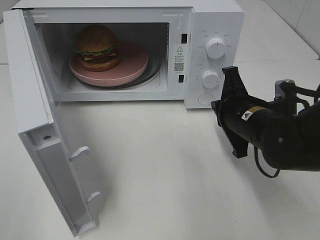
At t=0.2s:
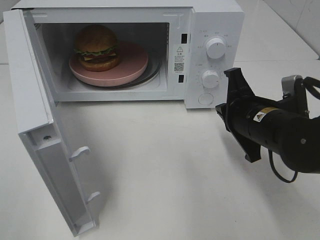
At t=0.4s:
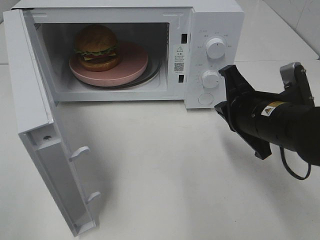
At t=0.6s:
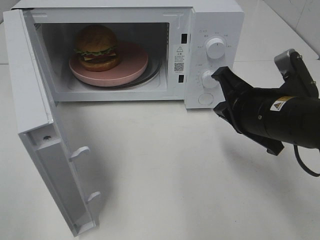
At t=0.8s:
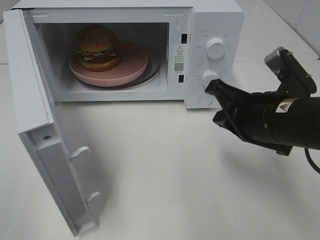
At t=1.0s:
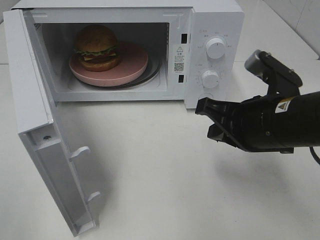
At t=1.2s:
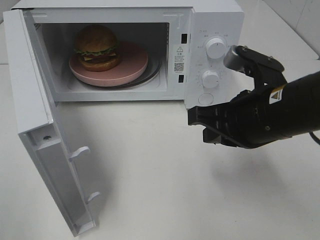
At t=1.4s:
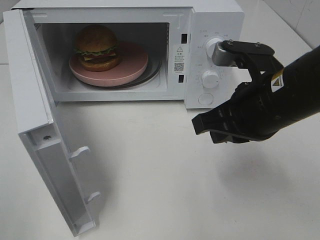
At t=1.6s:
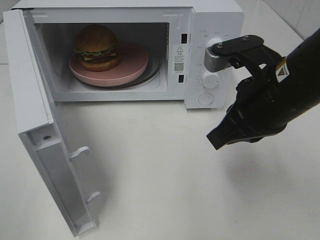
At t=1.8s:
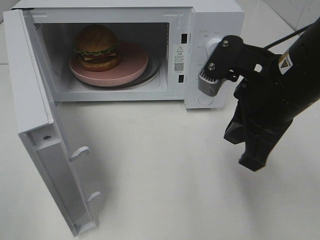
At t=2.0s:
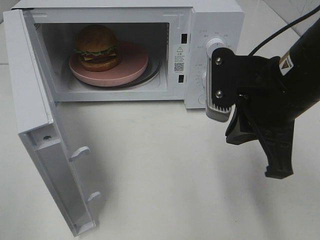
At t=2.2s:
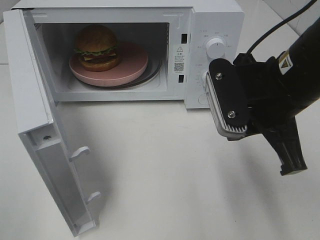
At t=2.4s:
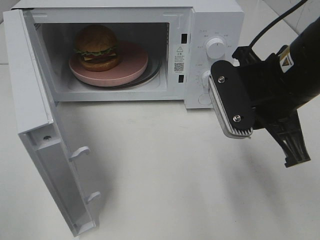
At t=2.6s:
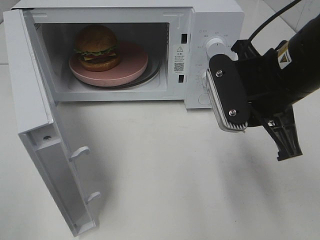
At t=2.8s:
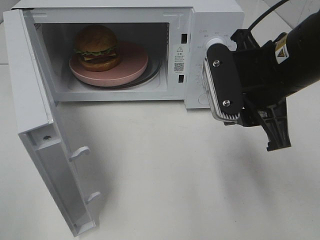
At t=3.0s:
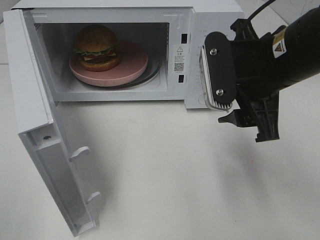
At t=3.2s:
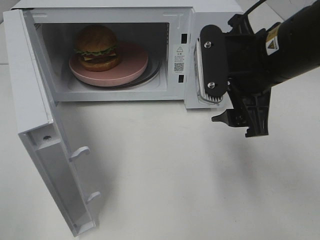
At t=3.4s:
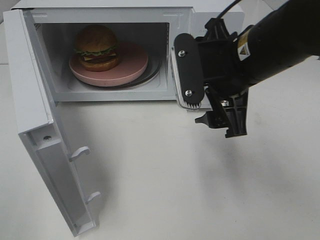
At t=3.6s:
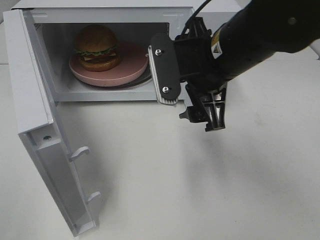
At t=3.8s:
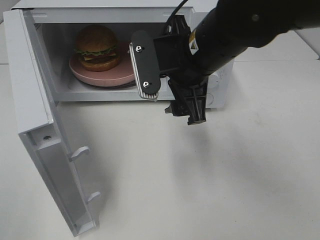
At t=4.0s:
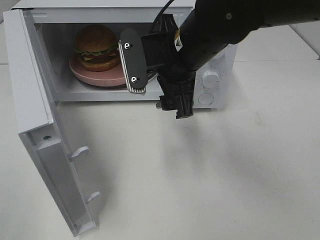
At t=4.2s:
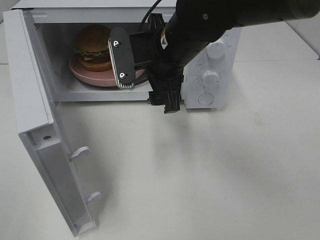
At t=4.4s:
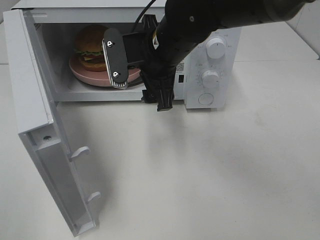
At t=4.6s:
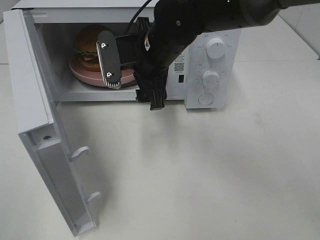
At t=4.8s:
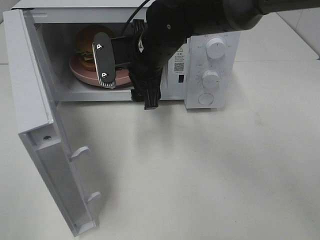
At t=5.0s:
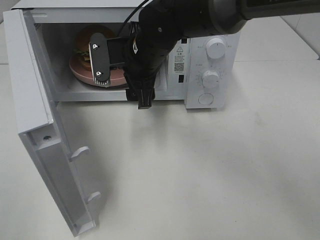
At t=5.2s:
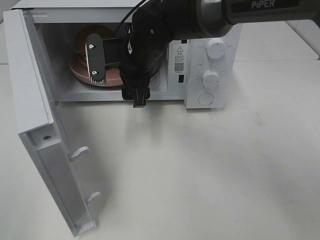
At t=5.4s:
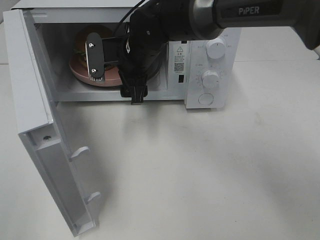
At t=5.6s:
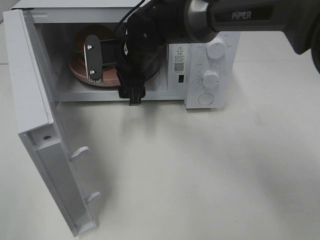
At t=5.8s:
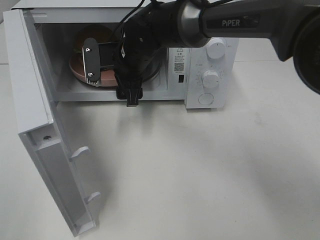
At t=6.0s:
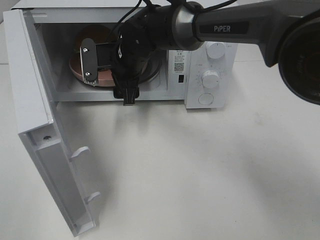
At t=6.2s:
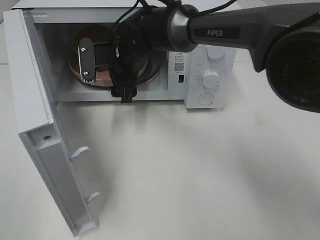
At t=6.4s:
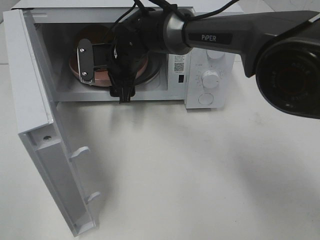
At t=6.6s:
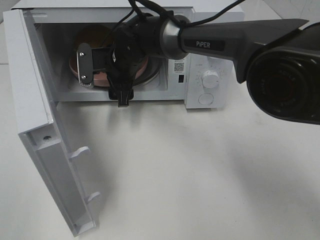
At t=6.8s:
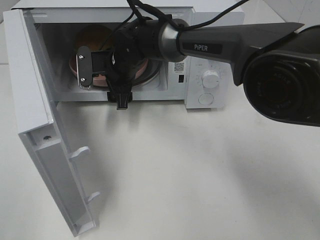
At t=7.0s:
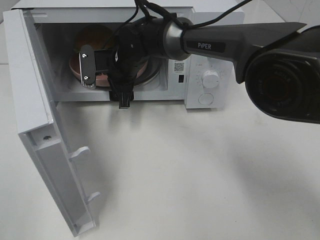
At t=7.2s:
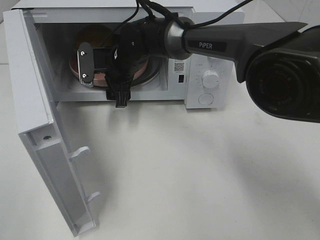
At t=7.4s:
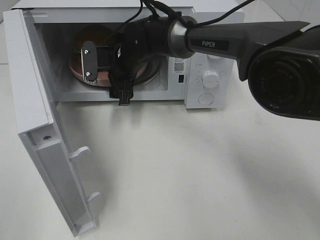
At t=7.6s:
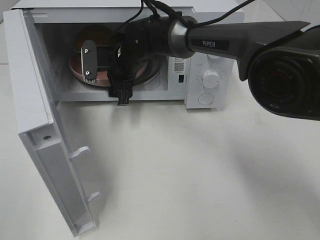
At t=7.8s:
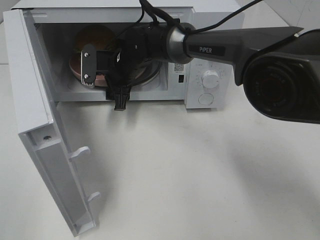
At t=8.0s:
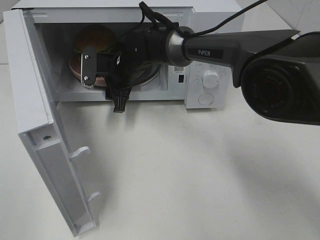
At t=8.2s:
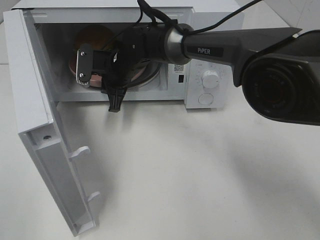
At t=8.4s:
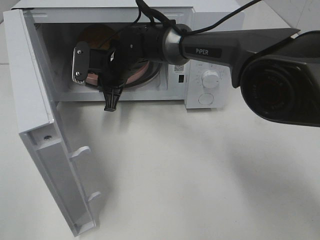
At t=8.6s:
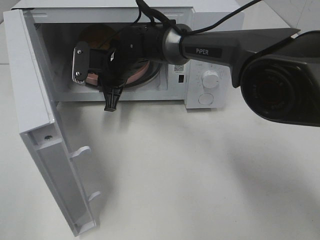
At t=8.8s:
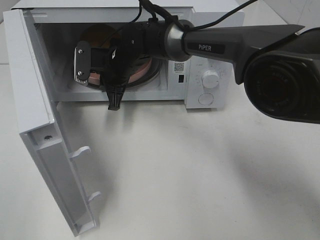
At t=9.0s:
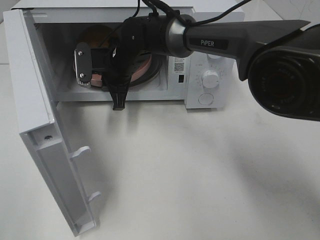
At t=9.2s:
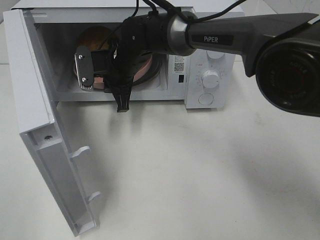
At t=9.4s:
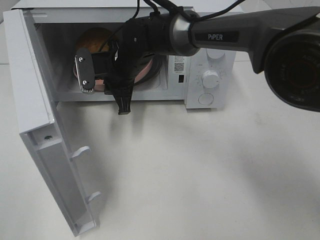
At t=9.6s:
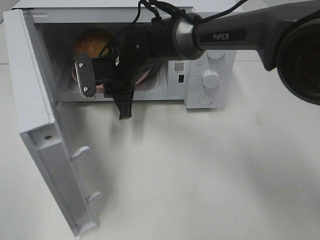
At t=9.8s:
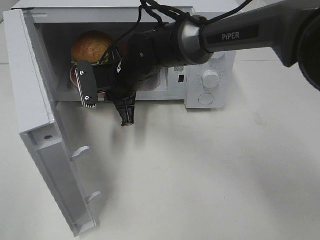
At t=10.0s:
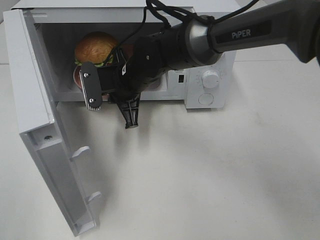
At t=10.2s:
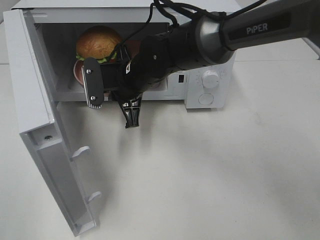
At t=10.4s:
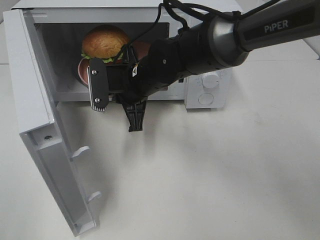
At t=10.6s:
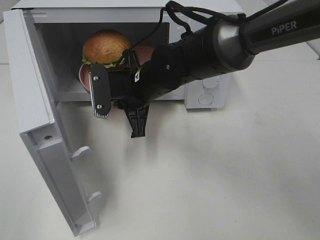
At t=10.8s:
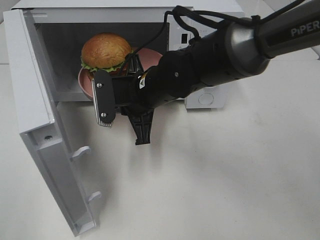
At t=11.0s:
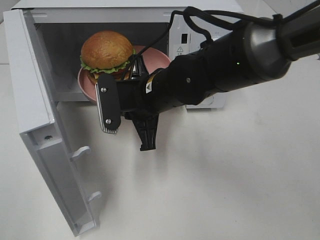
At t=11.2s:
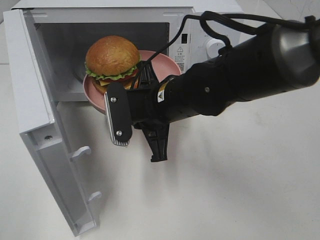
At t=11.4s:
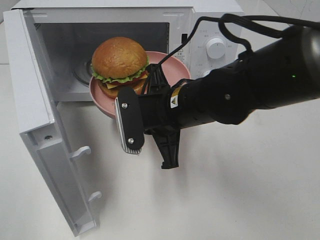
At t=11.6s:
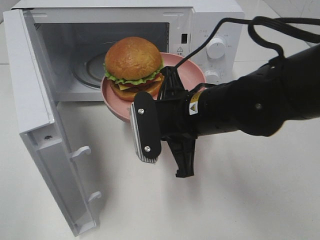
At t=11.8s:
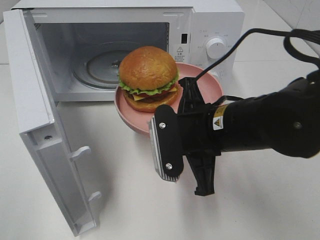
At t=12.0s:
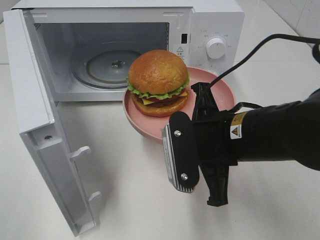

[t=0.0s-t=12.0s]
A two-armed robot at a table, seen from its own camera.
Task of the whole recording: Heat the burger.
Step, t=0.0s to t=8.4s: Right hand: grab the plate with the hamburger.
t=0.0s to t=1.6s: The right gripper is displaced upward and backward by some 10 cm.
t=1.6s to t=3.0s: The right gripper opens.
t=3.0s to t=4.4s: The right gripper moves to the left and forward, roughly 15 cm.
t=4.4s to t=6.0s: The right gripper shifts approximately 10 cm forward, to the left and downward.
t=6.0s to t=7.6s: The grippers move only a little.
t=7.6s to t=9.0s: The right gripper closes.
t=9.0s to t=10.4s: The right gripper is displaced backward by about 10 cm.
t=10.4s to t=12.0s: The right gripper heads backward and to the right, covering about 20 cm.

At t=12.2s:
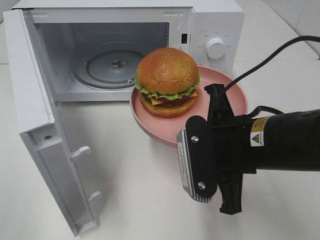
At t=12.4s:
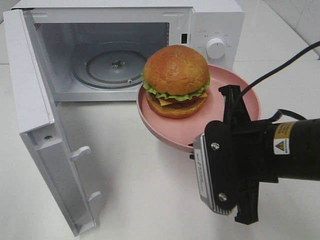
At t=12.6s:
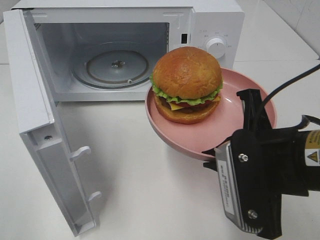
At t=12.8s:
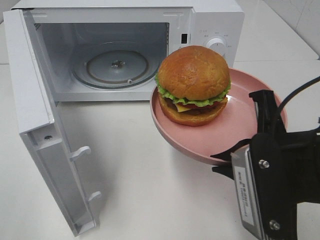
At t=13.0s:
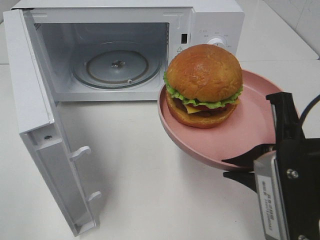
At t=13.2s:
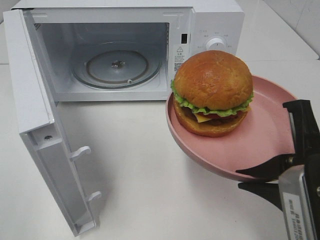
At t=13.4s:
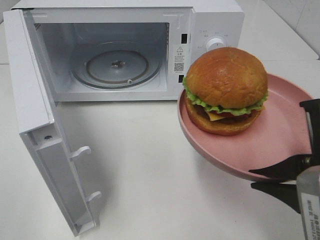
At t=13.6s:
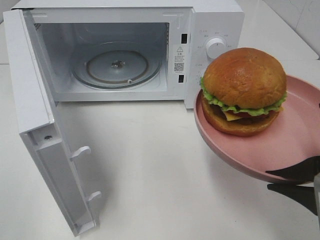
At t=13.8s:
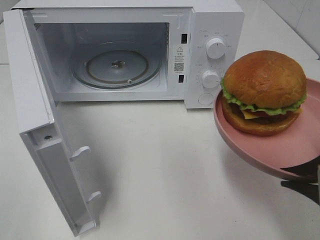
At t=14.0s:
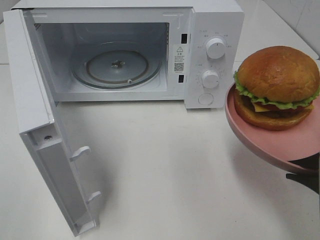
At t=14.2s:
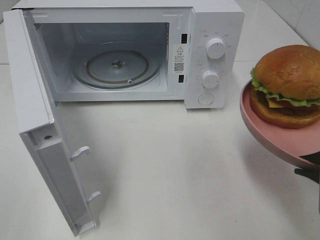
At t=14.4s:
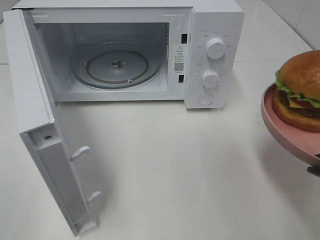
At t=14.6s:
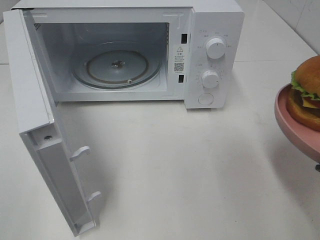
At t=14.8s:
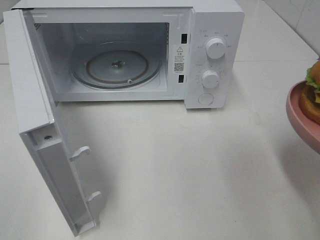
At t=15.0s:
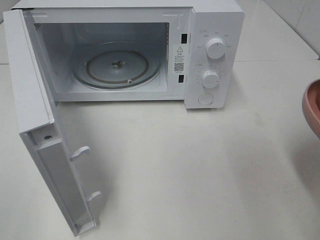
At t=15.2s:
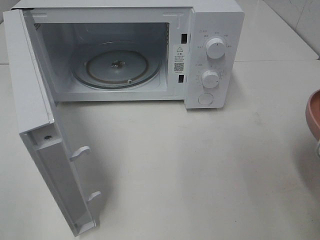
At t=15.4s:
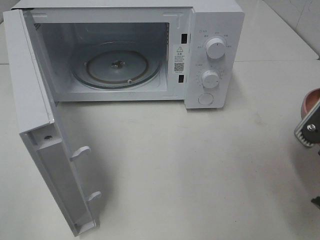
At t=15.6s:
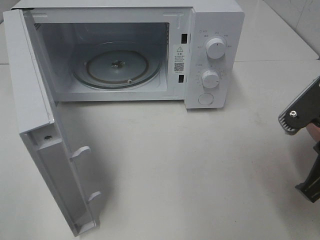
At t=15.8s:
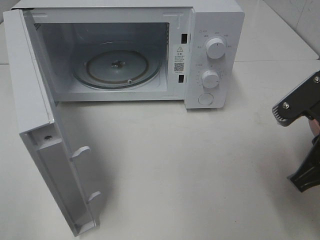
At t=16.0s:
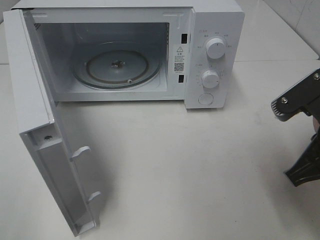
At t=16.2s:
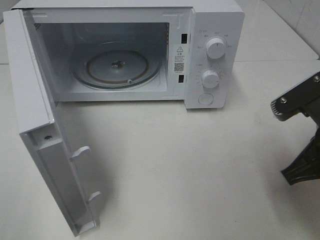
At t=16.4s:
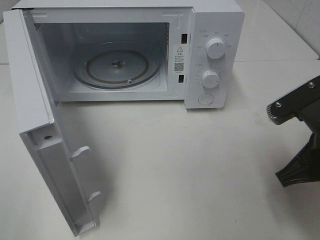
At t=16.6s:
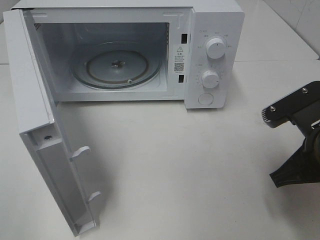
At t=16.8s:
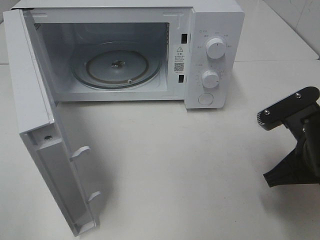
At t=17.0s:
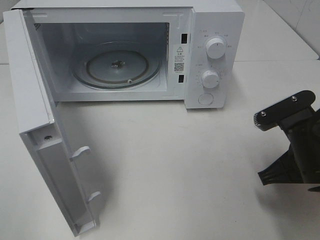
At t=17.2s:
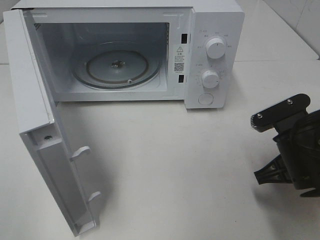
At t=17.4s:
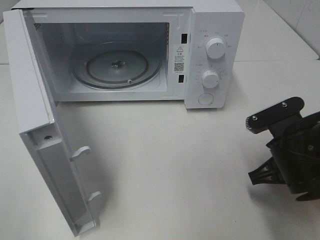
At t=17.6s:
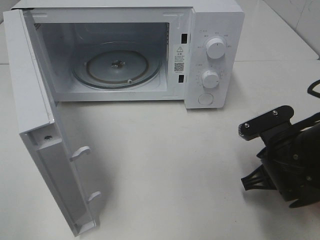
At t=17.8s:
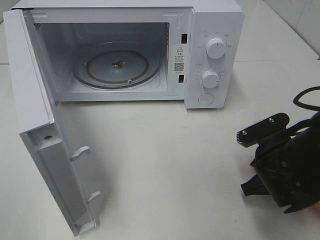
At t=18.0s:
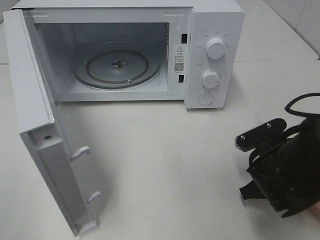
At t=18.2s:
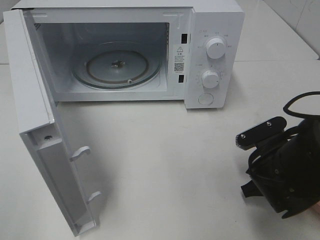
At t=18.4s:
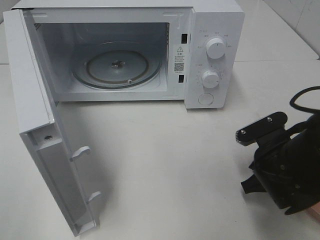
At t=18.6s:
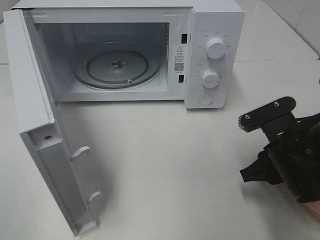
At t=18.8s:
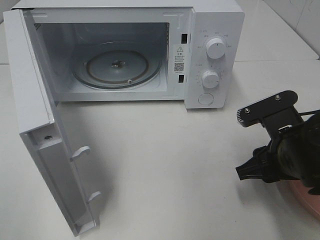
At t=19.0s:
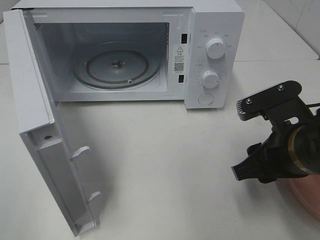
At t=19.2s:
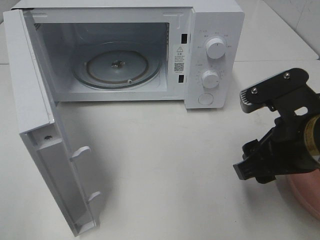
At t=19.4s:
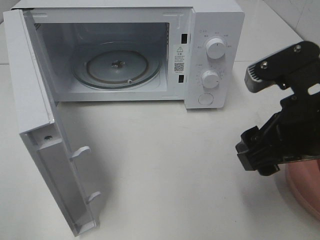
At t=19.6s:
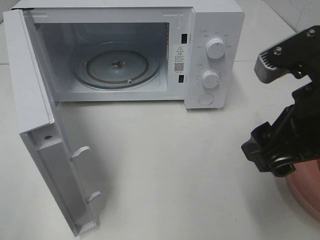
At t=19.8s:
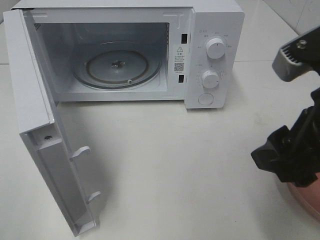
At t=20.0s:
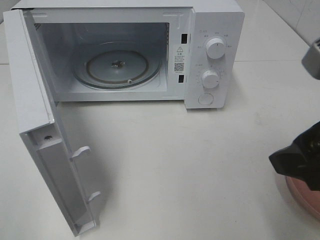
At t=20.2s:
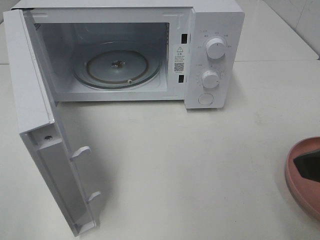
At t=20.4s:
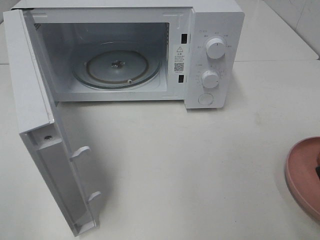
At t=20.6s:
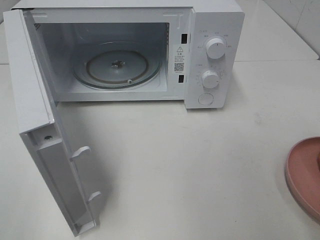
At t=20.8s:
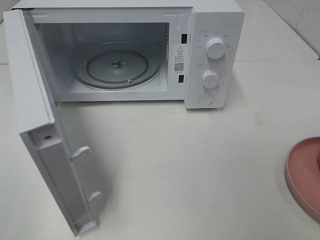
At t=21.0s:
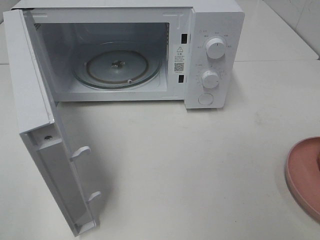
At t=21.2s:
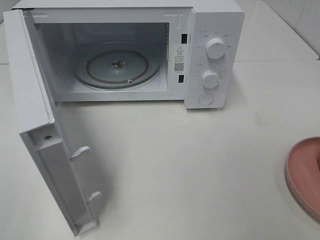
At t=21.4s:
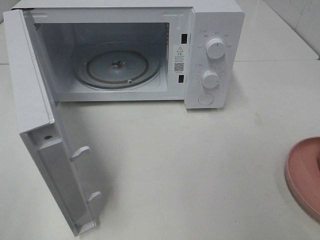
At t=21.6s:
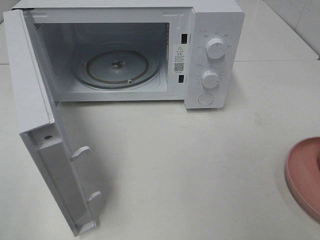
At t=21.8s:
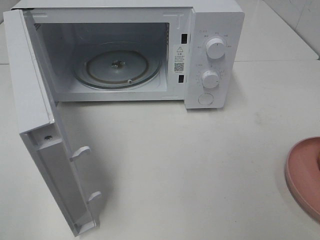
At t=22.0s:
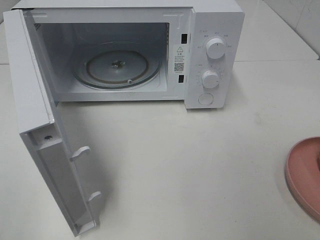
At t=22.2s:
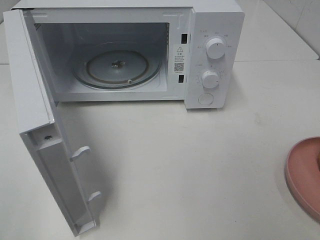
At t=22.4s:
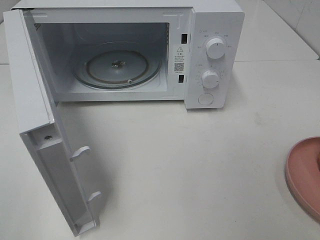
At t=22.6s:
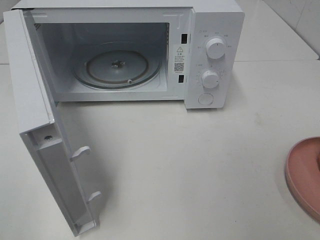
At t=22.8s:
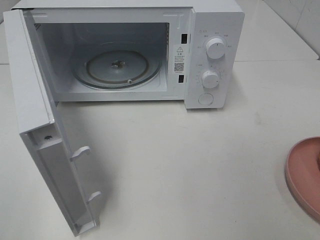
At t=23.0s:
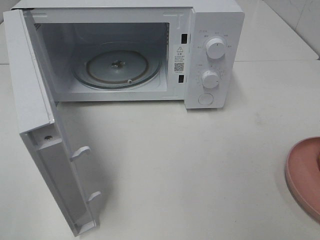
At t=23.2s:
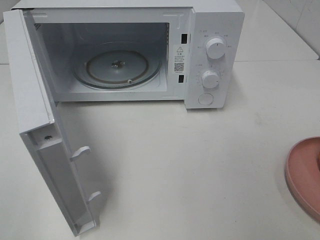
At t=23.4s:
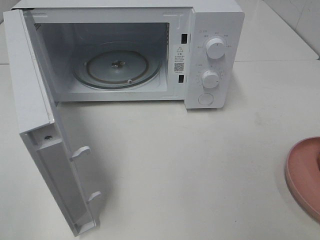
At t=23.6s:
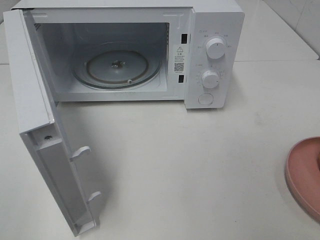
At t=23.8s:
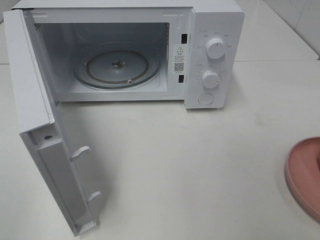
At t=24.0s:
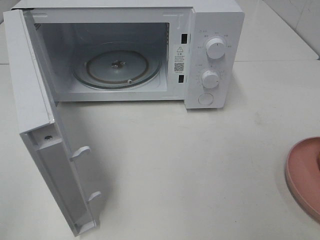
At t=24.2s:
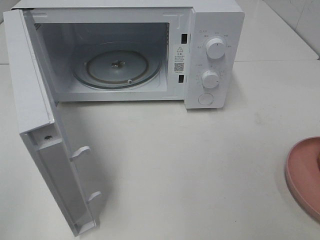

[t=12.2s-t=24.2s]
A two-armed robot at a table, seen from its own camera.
Task of the whole recording: Heat the burger.
Step, t=12.2s to t=18.4s: Right hand: place the plate on the table.
t=12.2s to t=13.8s: The right gripper moves to the right and backward, about 15 cm.
t=15.2s to t=16.6s: The right gripper shifts roughly 5 cm forward.
t=16.6s to t=18.2s: The right gripper shifts about 10 cm downward.
t=18.2s to t=19.8s: The right gripper moves upward, some 20 cm, and opens.
t=19.8s to t=21.2s: The right gripper heads backward and to the right, covering some 15 cm.
